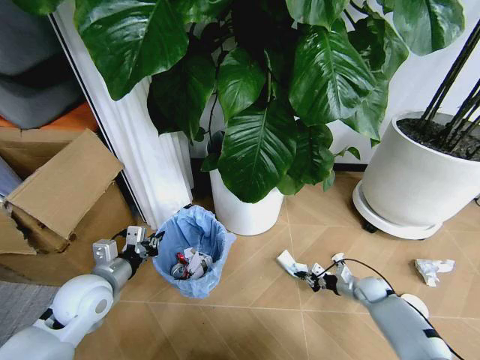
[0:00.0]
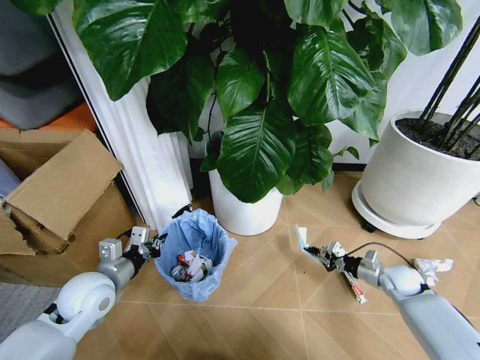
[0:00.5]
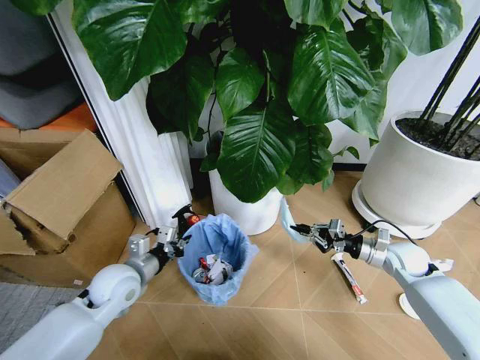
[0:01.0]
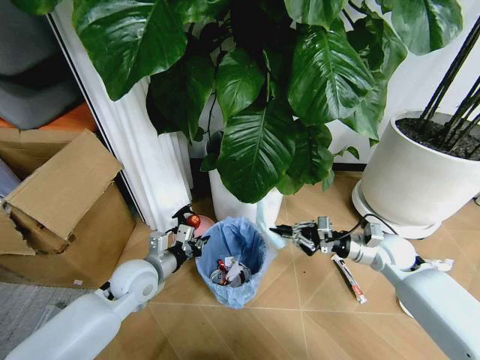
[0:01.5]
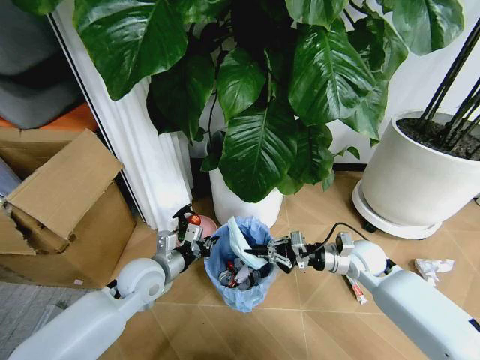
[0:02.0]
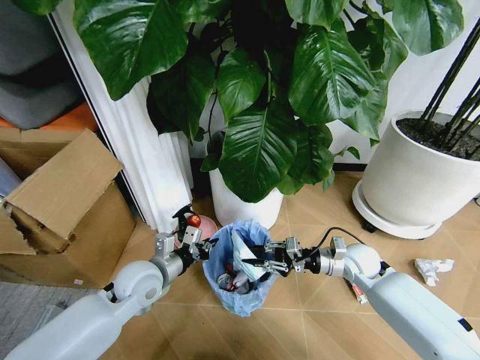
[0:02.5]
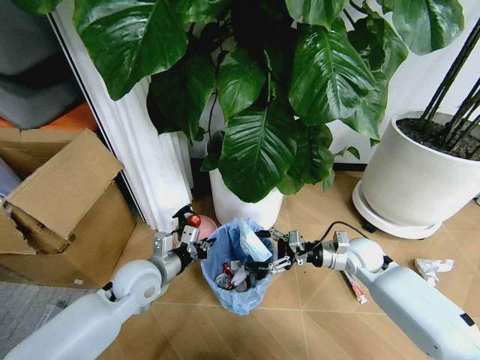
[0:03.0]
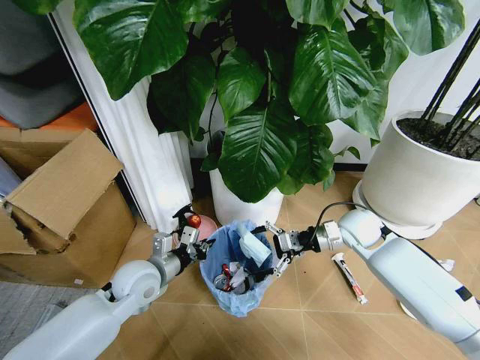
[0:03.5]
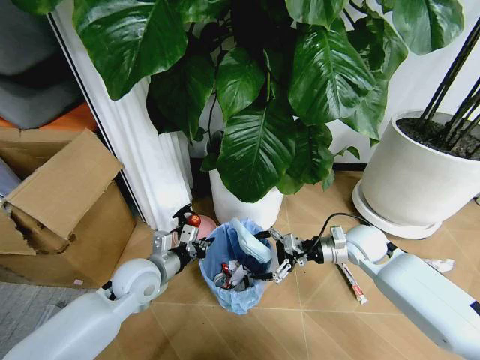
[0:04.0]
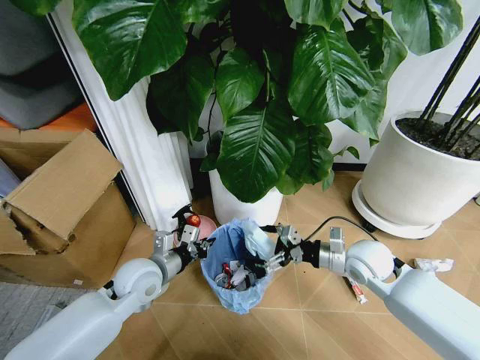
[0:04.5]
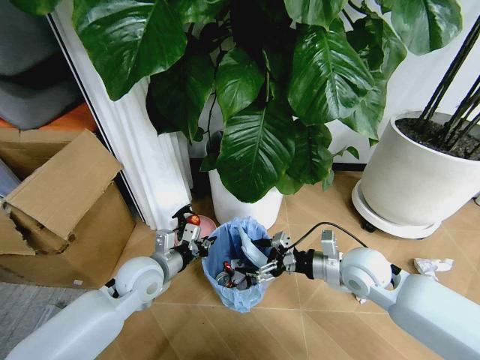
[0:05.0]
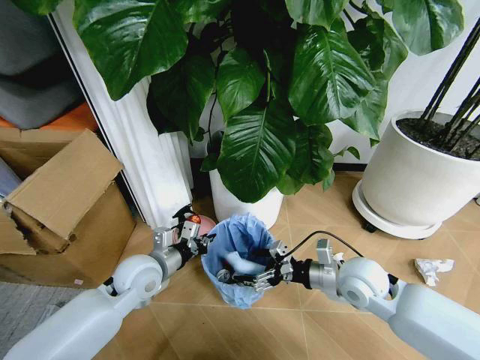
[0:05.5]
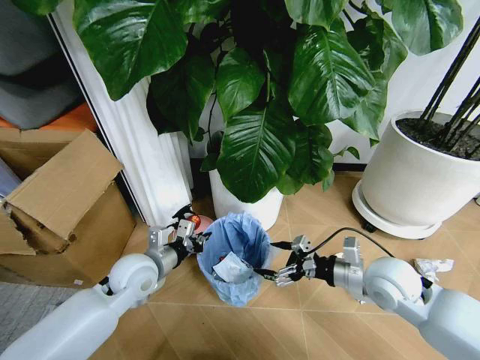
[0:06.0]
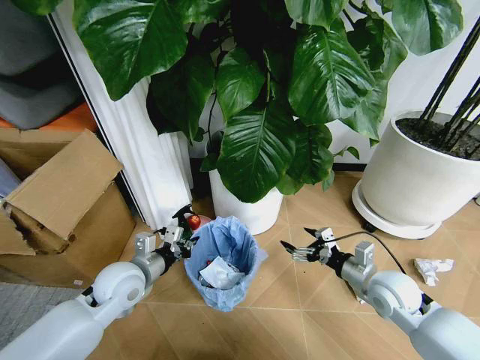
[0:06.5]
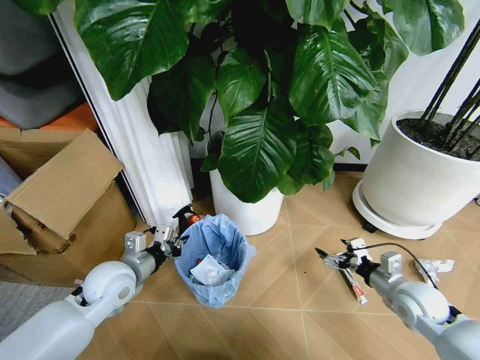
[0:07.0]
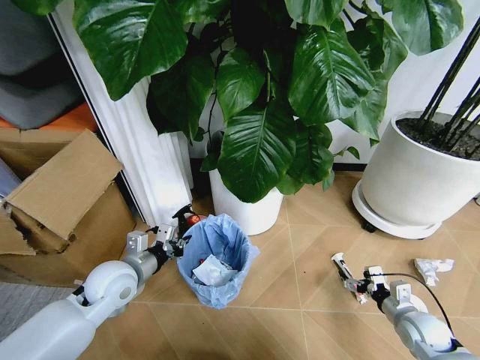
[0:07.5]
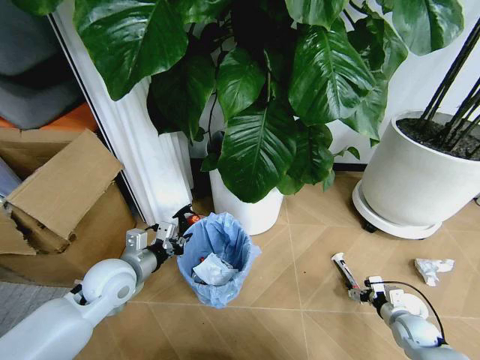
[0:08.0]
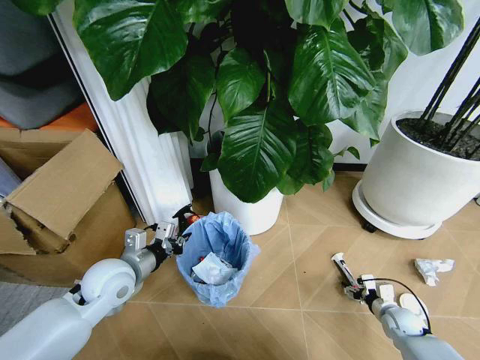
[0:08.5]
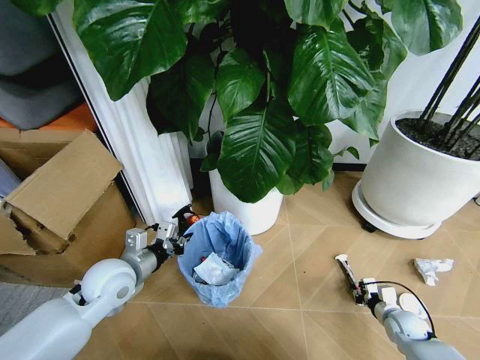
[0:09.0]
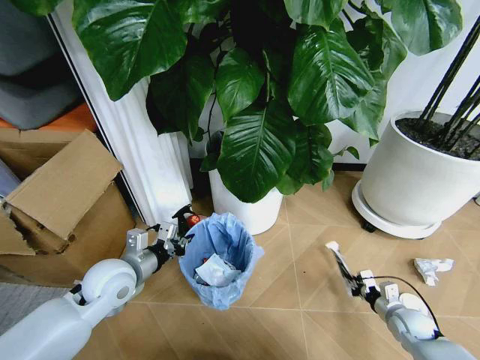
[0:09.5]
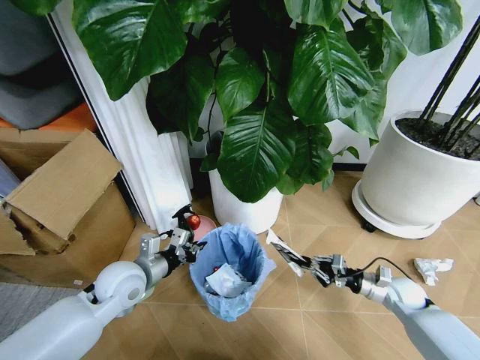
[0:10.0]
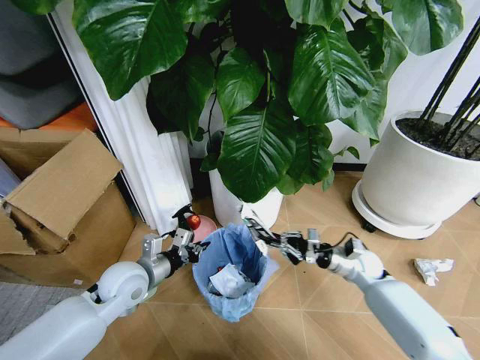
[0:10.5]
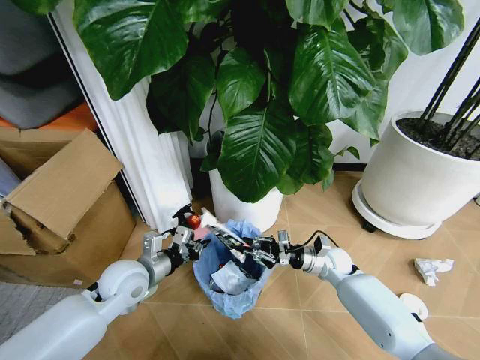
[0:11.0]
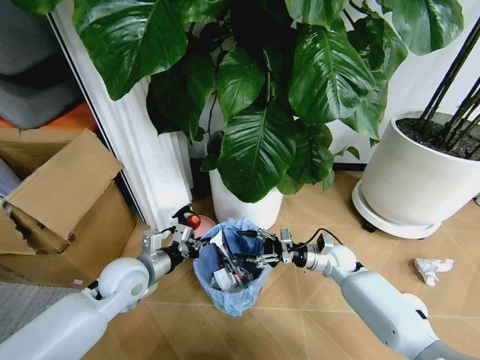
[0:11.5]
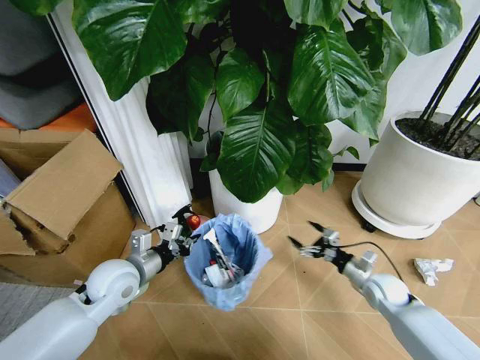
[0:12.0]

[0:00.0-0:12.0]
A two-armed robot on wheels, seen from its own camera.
Task of the whole recording: Pick up the trash bin and place the garbage on the floor into it.
0:00.0 to 0:02.0: The right gripper moves upward and to the left, roughly 25 cm. The left gripper goes roughly 10 cm to the right.
0:02.0 to 0:04.0: The right gripper opens up.
0:04.0 to 0:06.0: The right gripper is displaced backward by some 10 cm.
0:06.0 to 0:08.0: The right gripper shifts roughly 30 cm downward and to the right.
0:08.0 to 0:10.0: The right gripper shifts some 10 cm upward and forward, and closes its fingers.
0:10.0 to 0:12.0: The right gripper moves some 15 cm to the left and comes back, and opens its fingers.

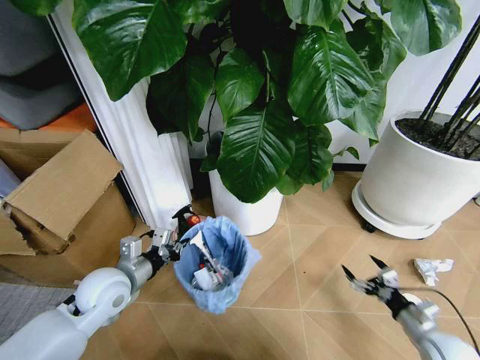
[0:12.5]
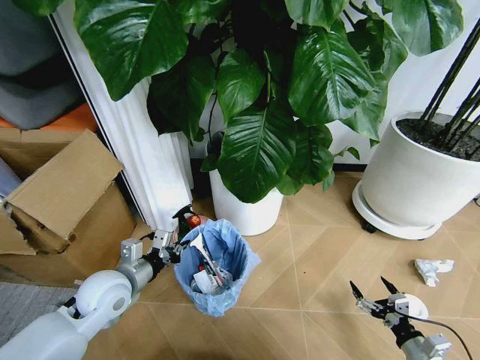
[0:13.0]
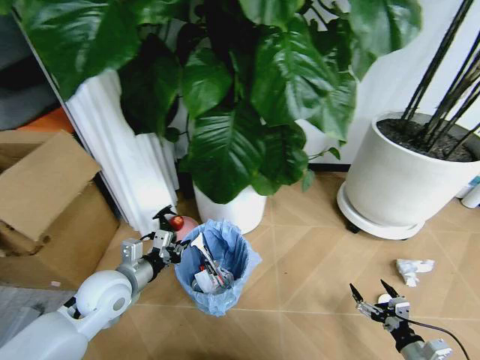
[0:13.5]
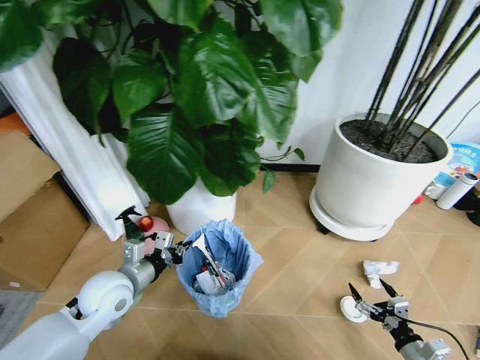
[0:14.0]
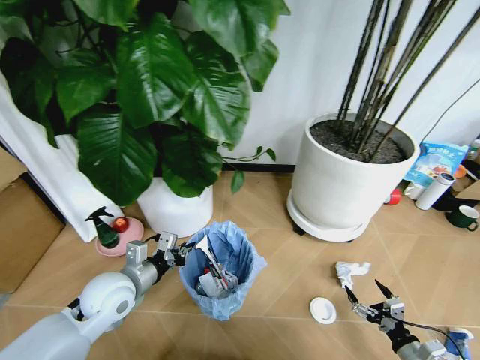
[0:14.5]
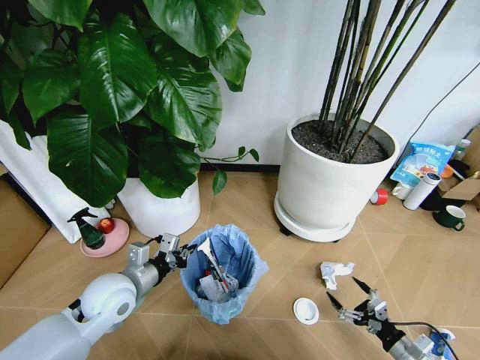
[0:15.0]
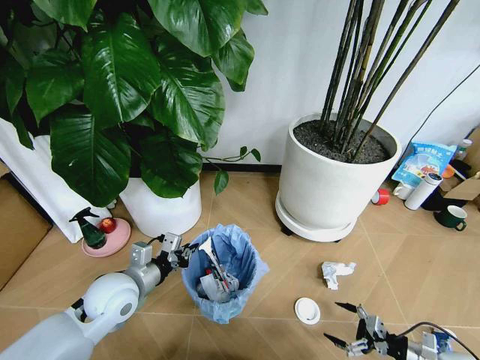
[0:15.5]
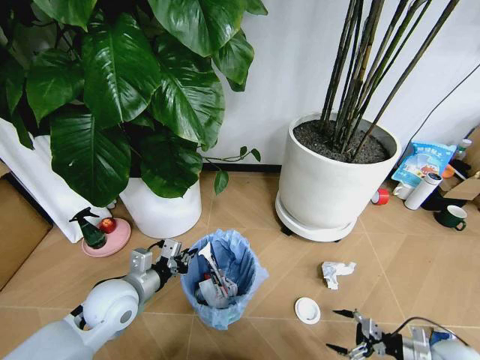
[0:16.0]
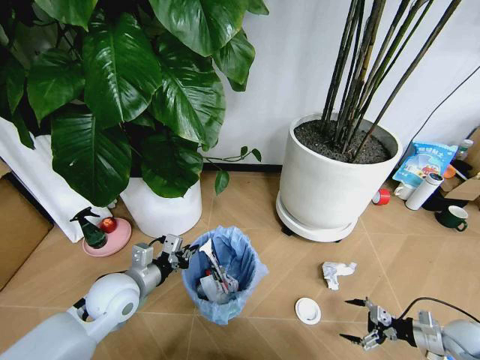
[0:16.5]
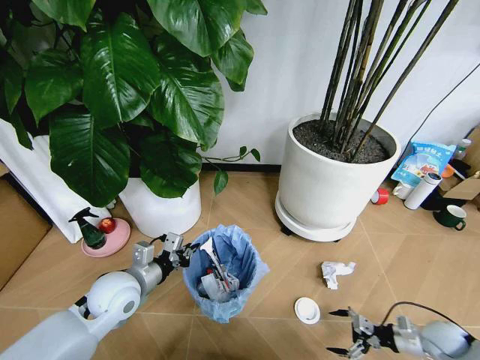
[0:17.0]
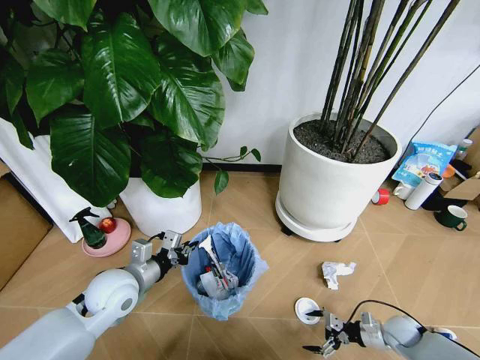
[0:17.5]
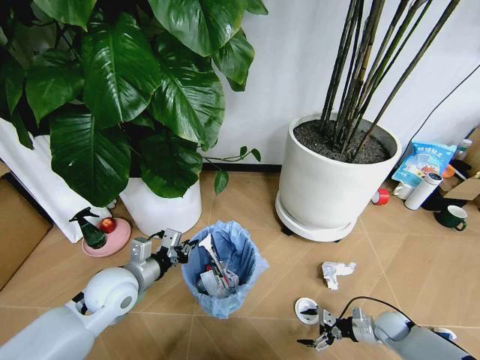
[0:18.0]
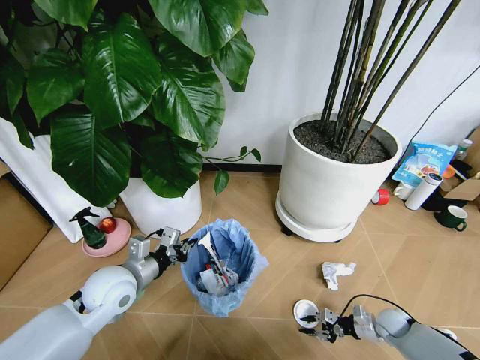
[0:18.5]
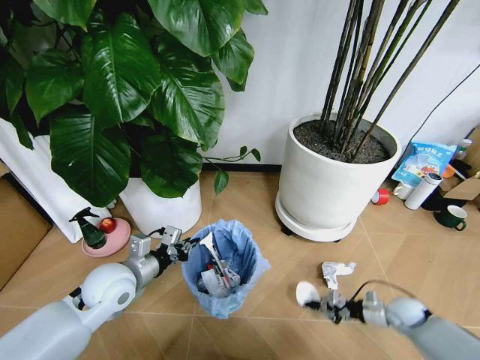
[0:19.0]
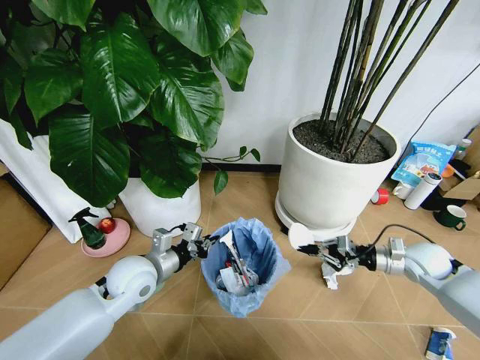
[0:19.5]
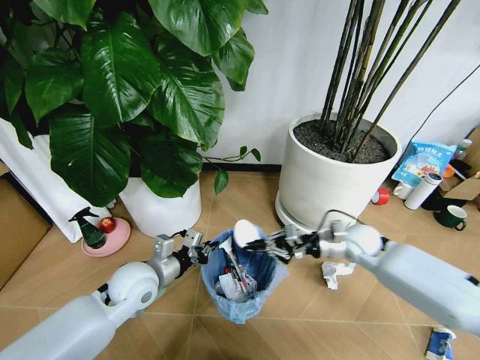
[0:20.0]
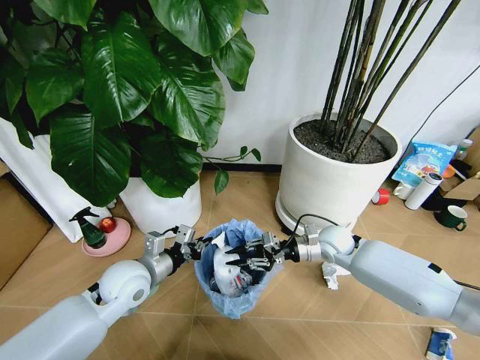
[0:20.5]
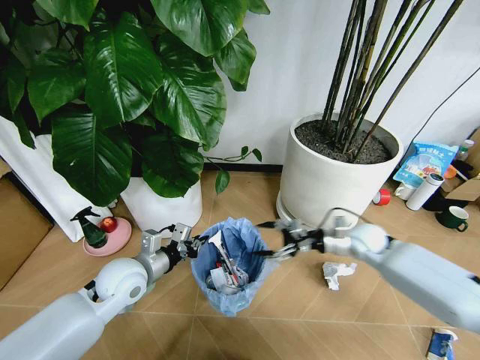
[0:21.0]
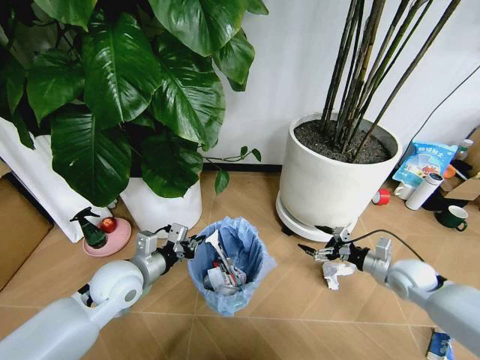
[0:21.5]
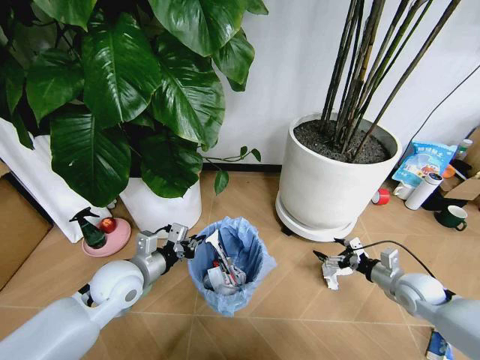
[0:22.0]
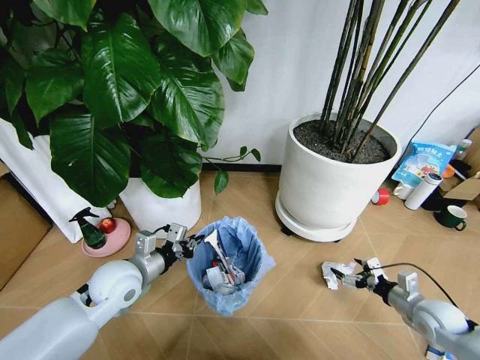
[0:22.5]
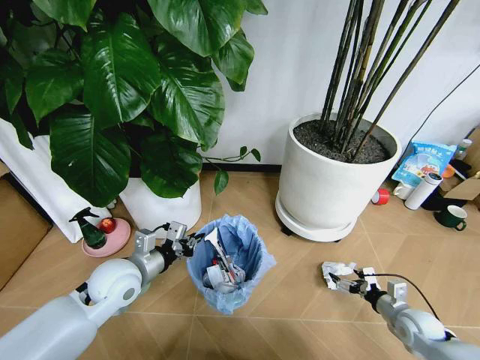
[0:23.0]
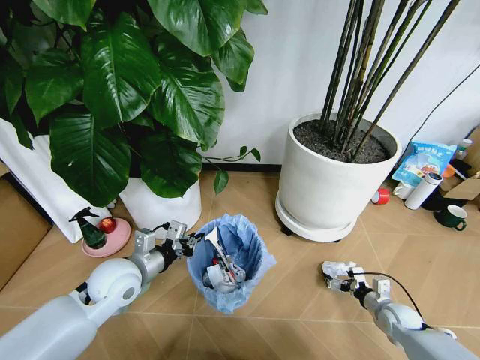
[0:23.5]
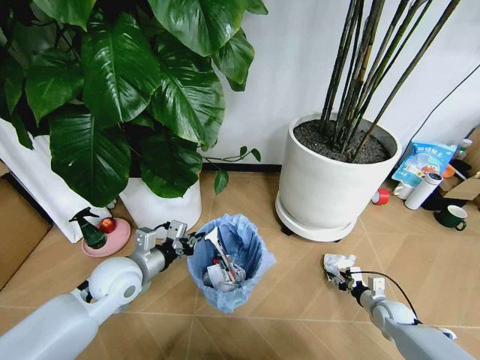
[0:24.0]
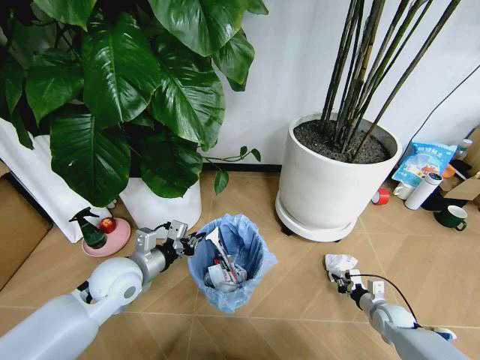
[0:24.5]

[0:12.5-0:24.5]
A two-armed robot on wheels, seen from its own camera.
Task of the whole recording: Pick up the trash bin and place the garbage on the floor into it.
0:12.5 to 0:14.5: The right gripper is displaced backward by some 5 cm.
0:14.5 to 0:16.5: The right gripper moves to the right and forward, about 15 cm.
0:16.5 to 0:18.5: The right gripper goes some 15 cm to the left, downward and forward, and closes up.
0:18.5 to 0:20.5: The right gripper travels upward, to the left and forward by some 35 cm.
0:20.5 to 0:22.5: The right gripper goes roughly 25 cm to the right and backward, and opens its fingers.
0:22.5 to 0:24.5: The right gripper goes about 15 cm downward, and closes.

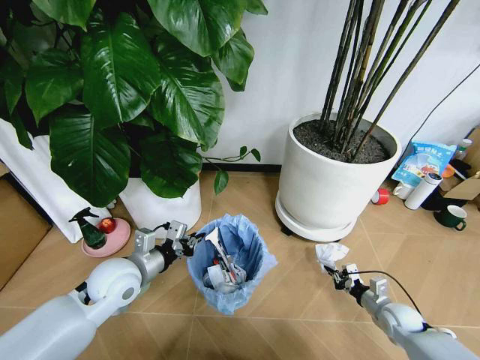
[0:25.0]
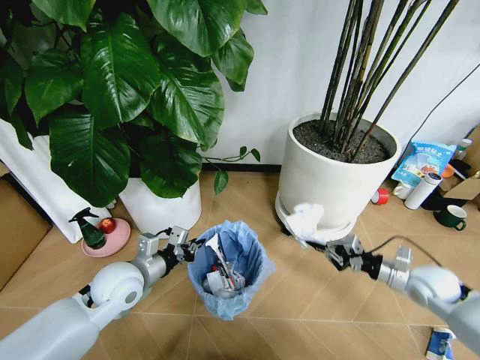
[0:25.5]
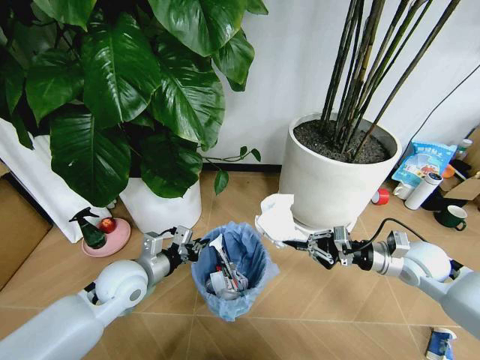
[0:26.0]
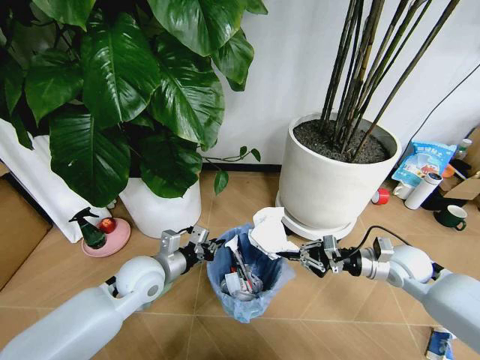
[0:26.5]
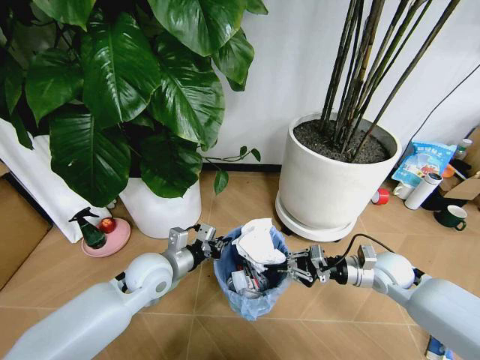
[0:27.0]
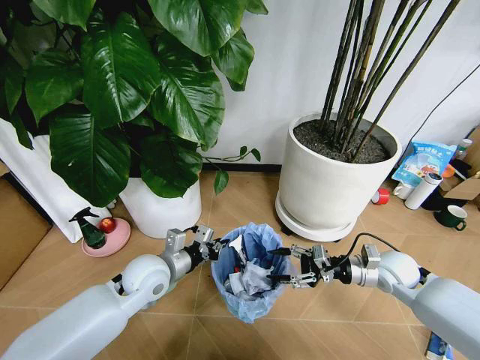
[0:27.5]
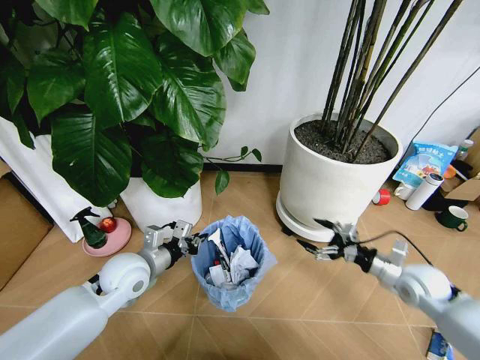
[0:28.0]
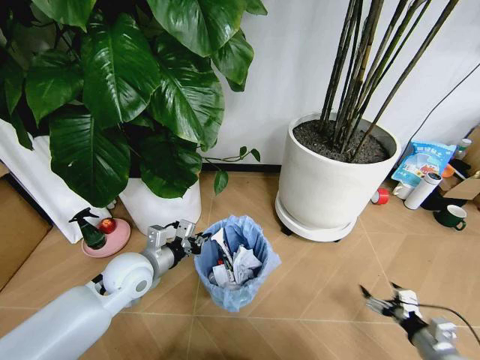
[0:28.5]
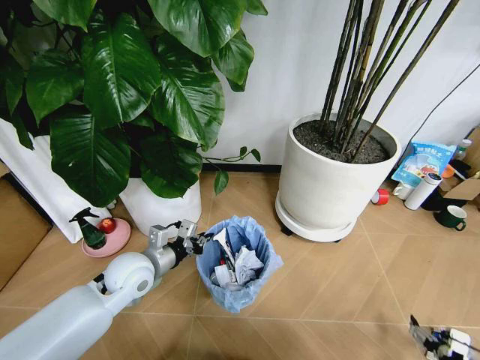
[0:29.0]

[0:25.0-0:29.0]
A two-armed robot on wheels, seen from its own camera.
Task of the whole recording: Pick up the trash bin and place the garbage on the floor into it.
0:25.0 to 0:27.0: The right gripper moves upward and to the left, about 20 cm. Meanwhile the left gripper shifts approximately 5 cm to the right.
0:27.0 to 0:29.0: The right gripper shifts approximately 30 cm backward, to the right and downward, and opens.
